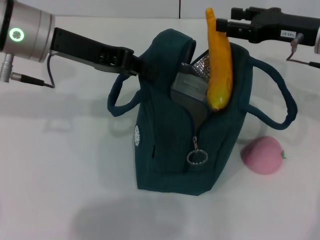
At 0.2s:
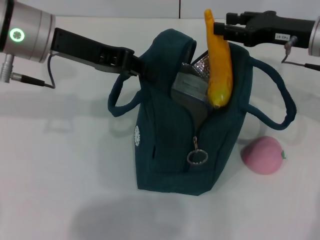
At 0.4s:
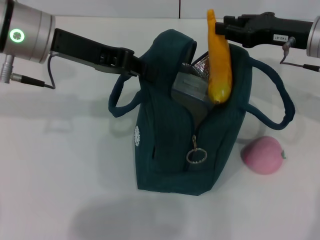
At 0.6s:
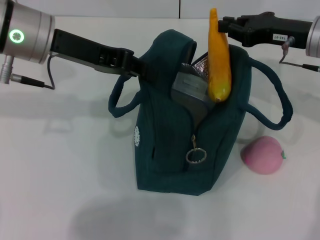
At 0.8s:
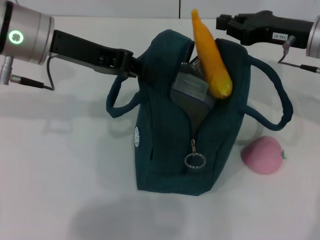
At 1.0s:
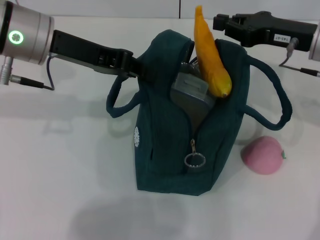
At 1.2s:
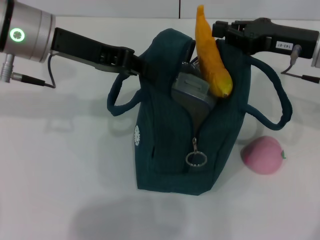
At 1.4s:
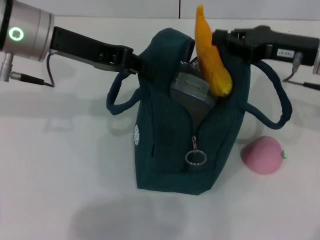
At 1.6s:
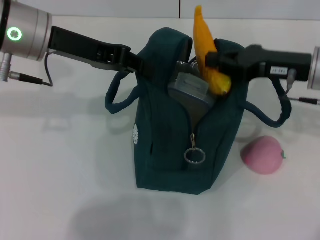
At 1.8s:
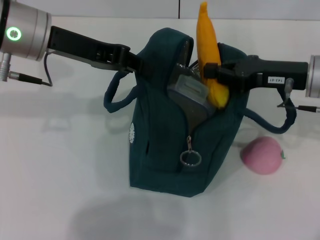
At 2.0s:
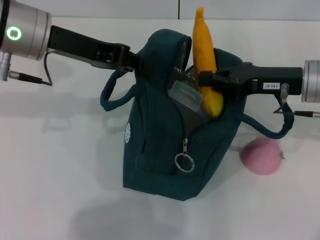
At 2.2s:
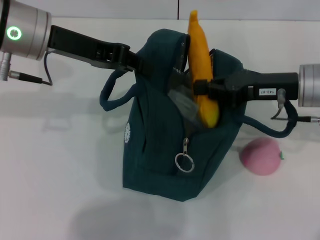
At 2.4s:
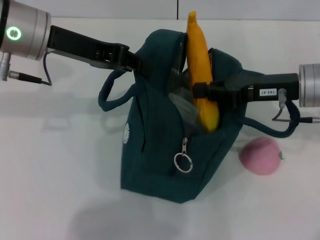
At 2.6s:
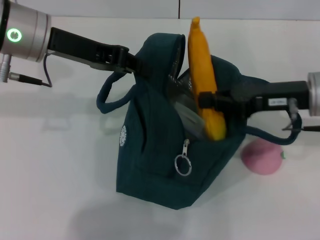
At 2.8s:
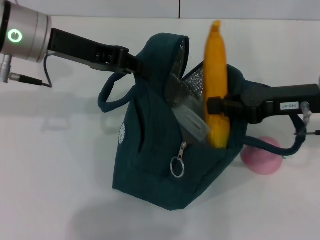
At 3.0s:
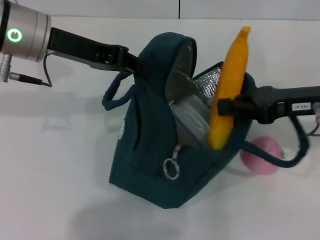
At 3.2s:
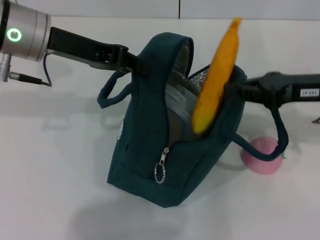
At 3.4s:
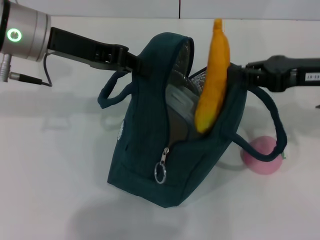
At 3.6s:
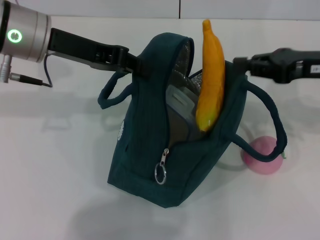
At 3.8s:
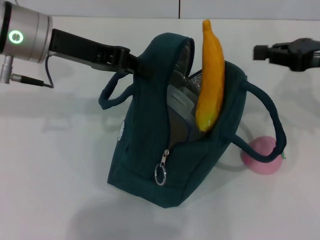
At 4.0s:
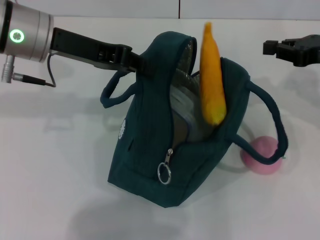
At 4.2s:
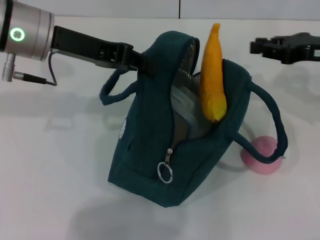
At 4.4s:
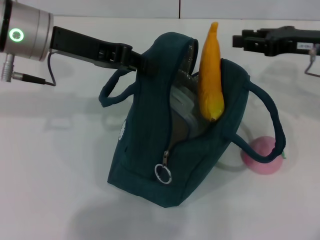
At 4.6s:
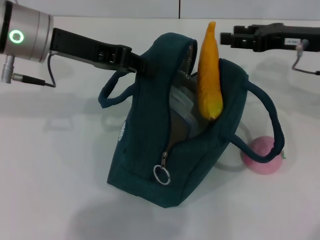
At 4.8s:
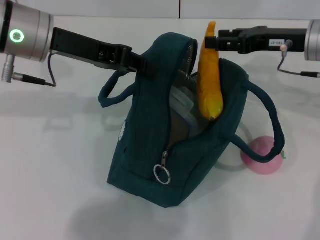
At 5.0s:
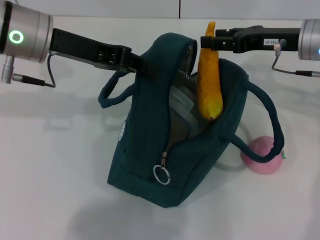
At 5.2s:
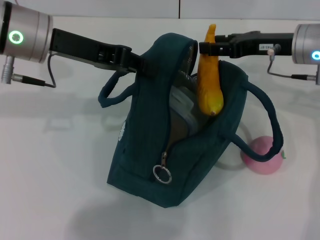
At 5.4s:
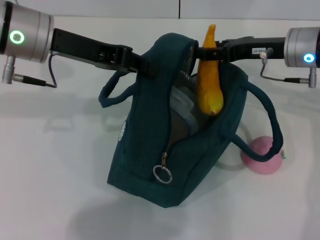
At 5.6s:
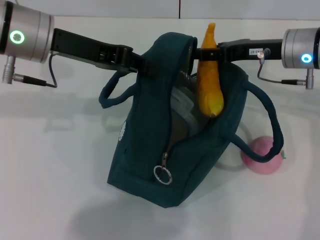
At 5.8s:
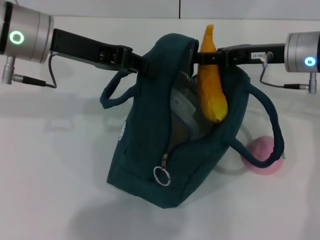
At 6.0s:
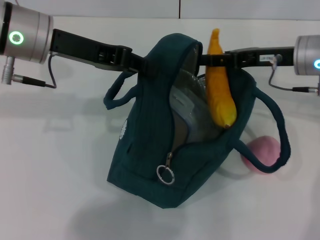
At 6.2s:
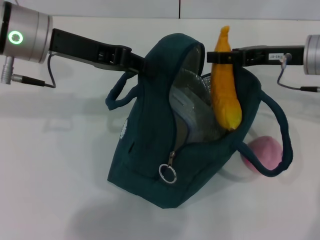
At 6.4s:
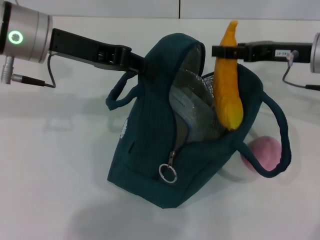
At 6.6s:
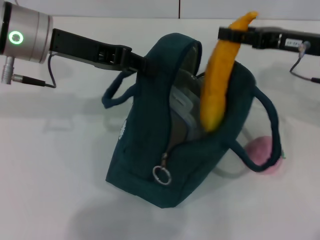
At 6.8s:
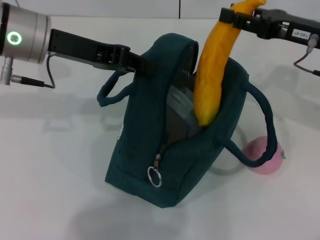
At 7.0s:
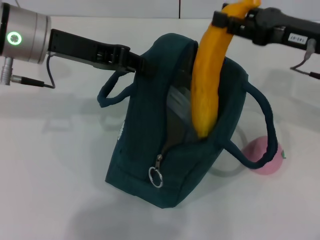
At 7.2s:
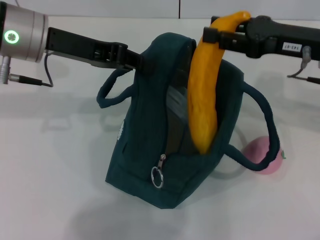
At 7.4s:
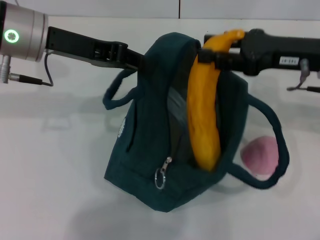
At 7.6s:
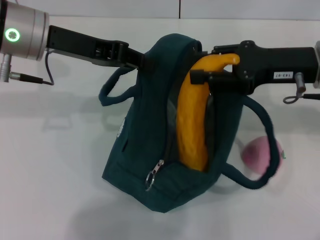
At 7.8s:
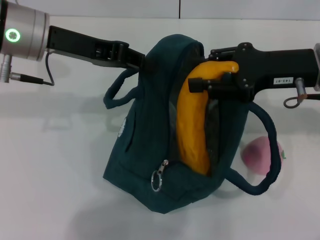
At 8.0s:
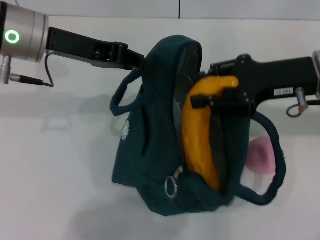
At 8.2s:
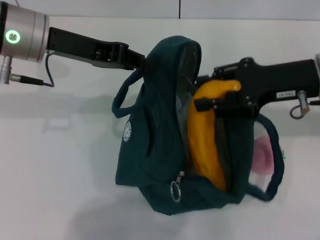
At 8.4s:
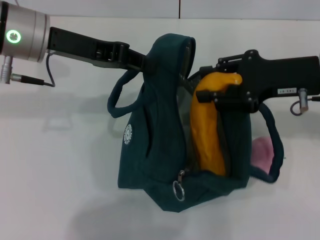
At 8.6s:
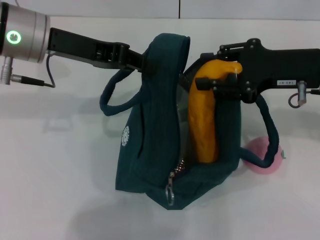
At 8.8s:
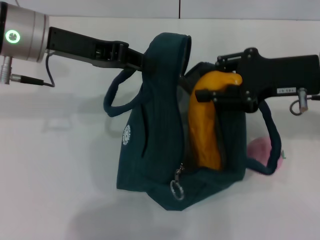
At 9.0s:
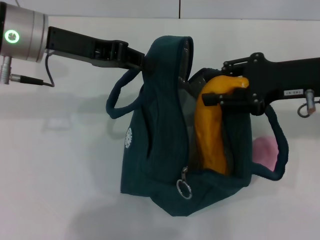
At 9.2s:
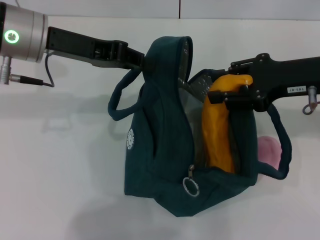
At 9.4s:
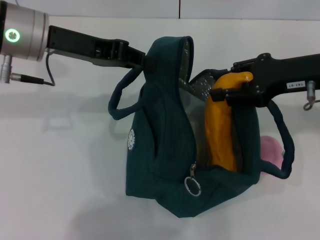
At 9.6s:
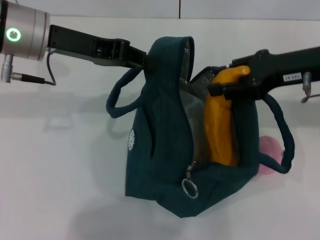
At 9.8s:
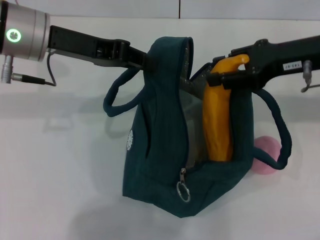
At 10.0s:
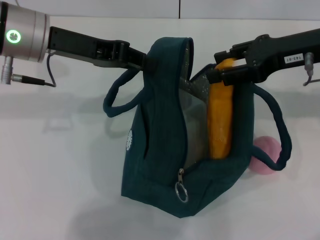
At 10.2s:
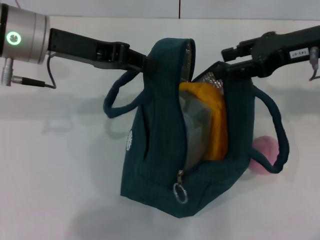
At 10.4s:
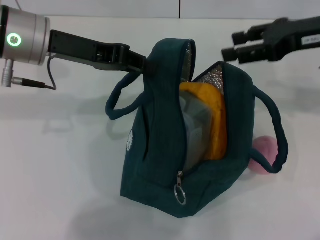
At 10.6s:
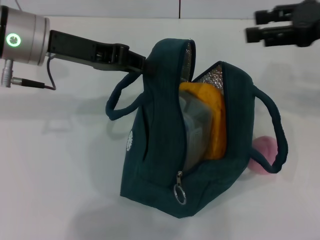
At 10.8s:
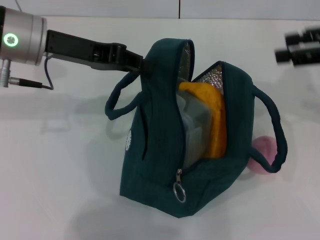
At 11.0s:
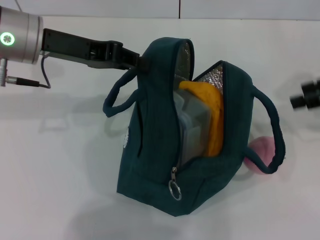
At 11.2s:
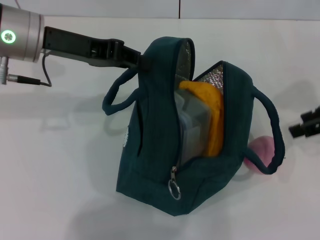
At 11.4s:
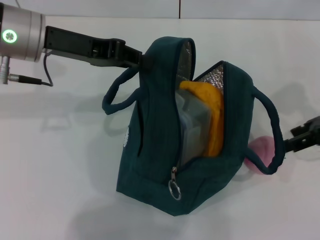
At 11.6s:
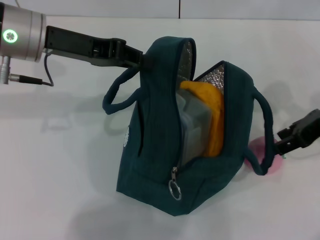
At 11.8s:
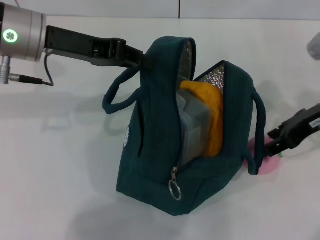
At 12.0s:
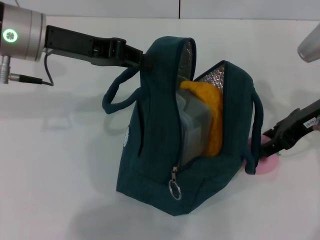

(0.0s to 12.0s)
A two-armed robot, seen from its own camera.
Step, 0.0s - 10.4s: Put the banana into the lunch bag with your right hand.
0.0s - 1.6s: The right gripper closes.
3.0s - 4.4s: The right gripper shifts approximately 5 cm forward.
4.4s - 6.0s: The right gripper opens up.
6.0s - 7.6s: The right gripper moves backward, roughly 5 cm.
9.0s - 10.4s: The right gripper moves approximately 5 cm.
10.4s - 12.0s: The right gripper moves downward, about 5 cm.

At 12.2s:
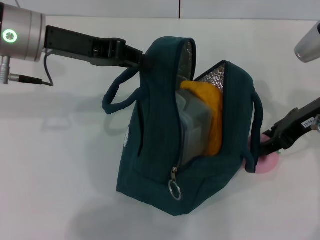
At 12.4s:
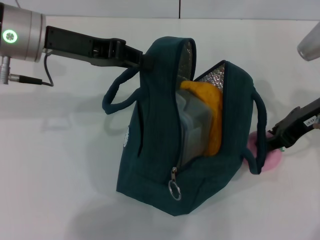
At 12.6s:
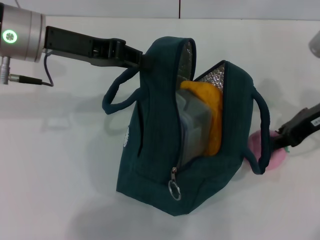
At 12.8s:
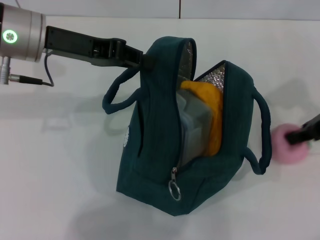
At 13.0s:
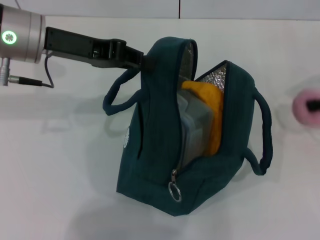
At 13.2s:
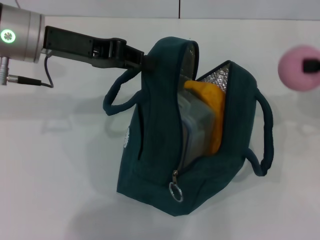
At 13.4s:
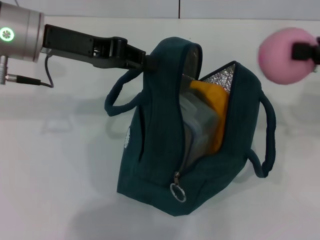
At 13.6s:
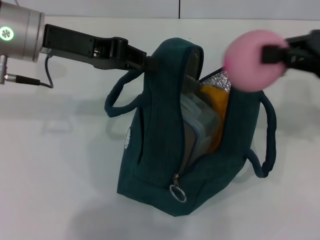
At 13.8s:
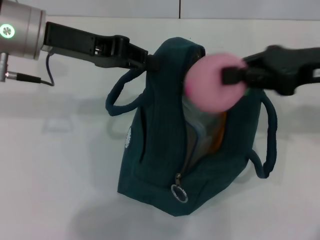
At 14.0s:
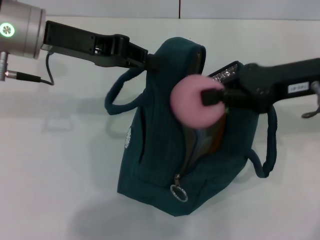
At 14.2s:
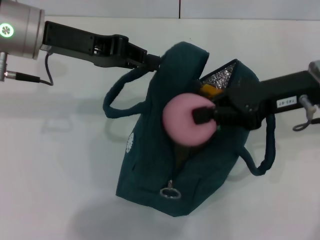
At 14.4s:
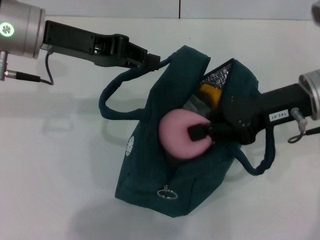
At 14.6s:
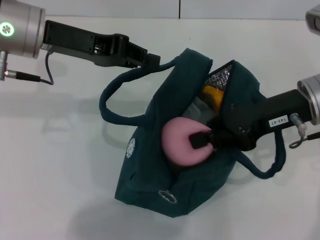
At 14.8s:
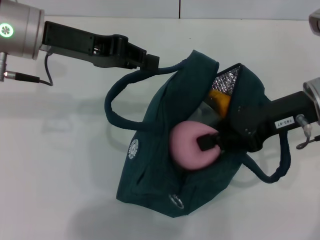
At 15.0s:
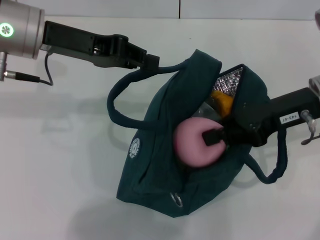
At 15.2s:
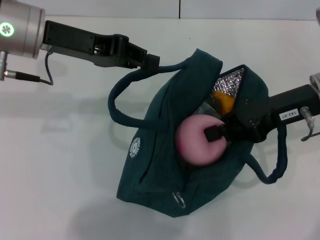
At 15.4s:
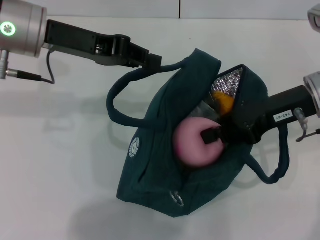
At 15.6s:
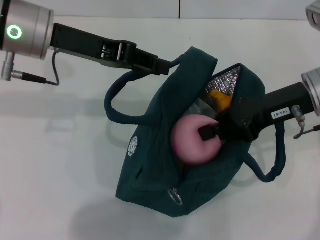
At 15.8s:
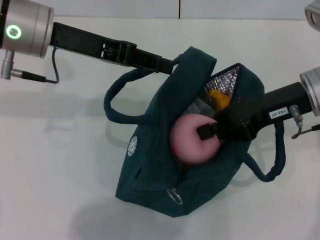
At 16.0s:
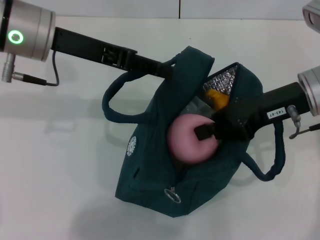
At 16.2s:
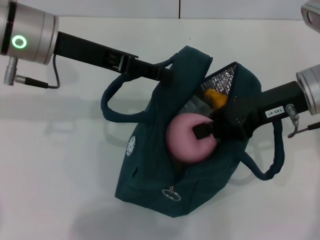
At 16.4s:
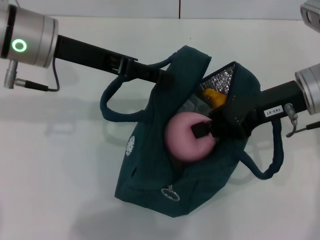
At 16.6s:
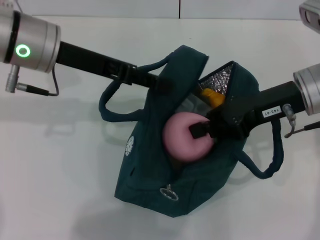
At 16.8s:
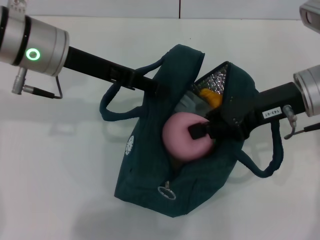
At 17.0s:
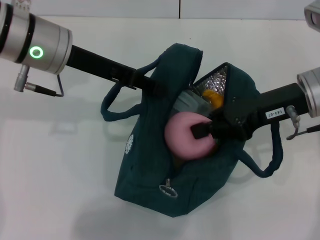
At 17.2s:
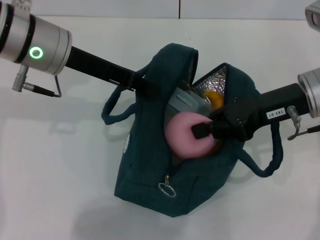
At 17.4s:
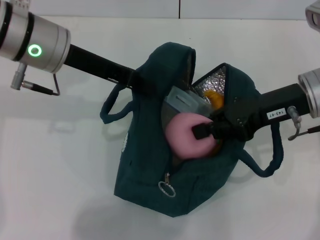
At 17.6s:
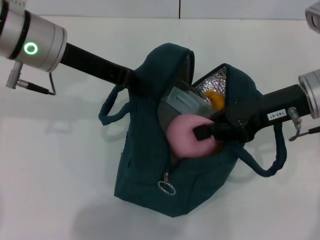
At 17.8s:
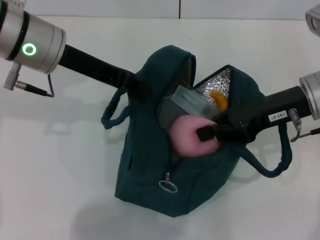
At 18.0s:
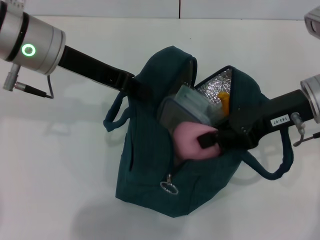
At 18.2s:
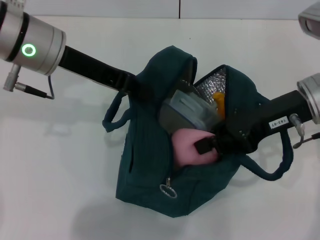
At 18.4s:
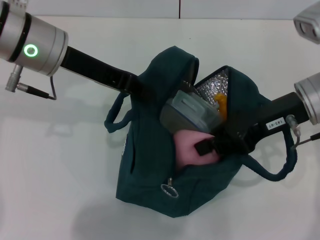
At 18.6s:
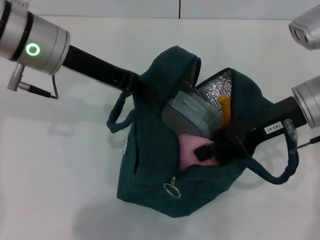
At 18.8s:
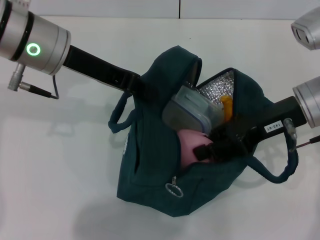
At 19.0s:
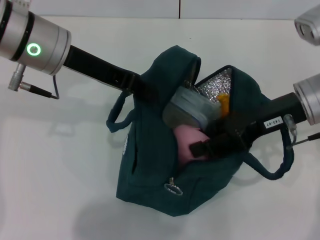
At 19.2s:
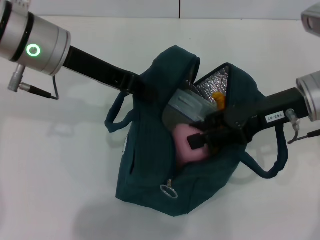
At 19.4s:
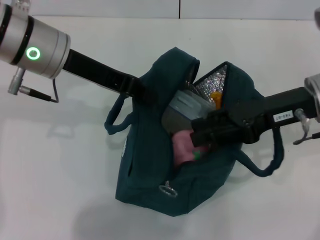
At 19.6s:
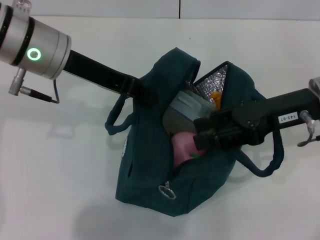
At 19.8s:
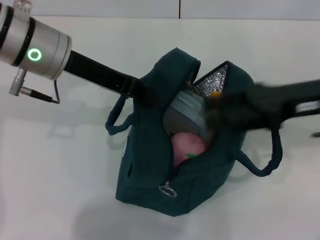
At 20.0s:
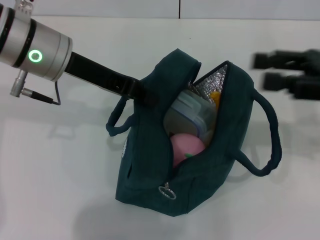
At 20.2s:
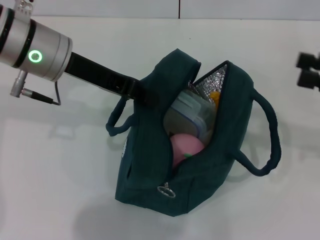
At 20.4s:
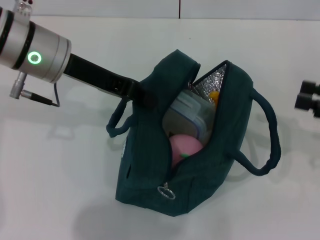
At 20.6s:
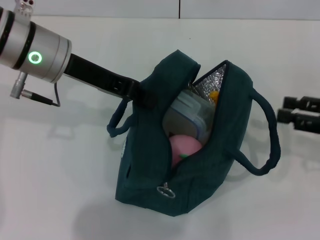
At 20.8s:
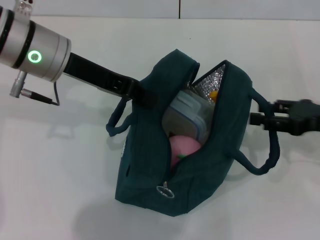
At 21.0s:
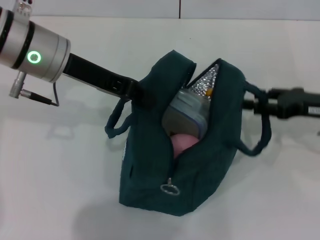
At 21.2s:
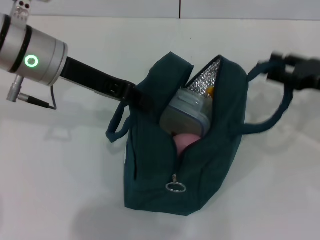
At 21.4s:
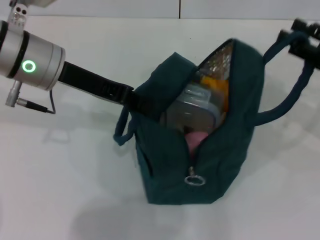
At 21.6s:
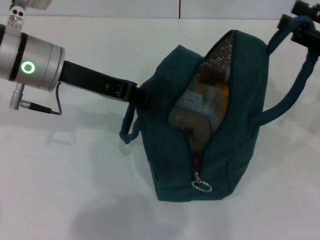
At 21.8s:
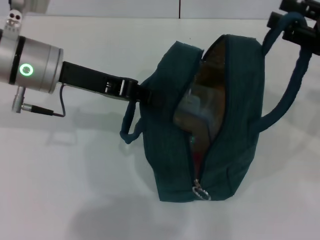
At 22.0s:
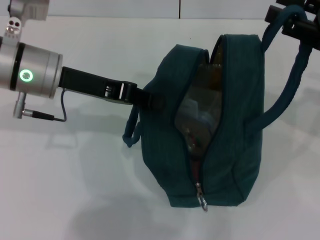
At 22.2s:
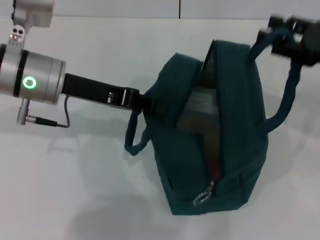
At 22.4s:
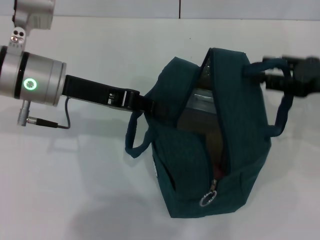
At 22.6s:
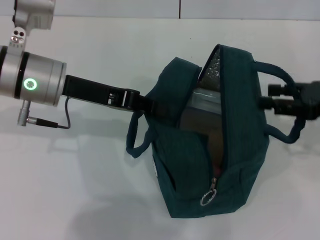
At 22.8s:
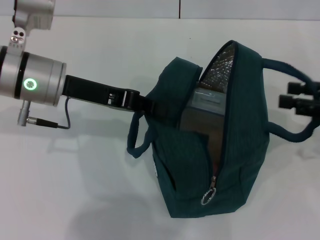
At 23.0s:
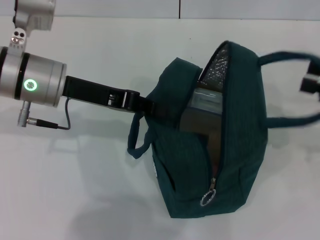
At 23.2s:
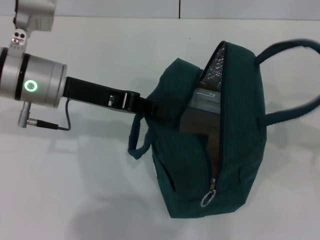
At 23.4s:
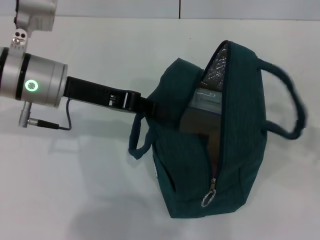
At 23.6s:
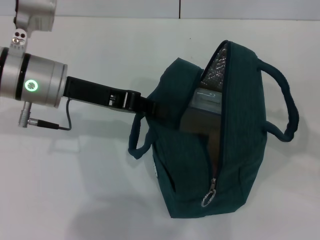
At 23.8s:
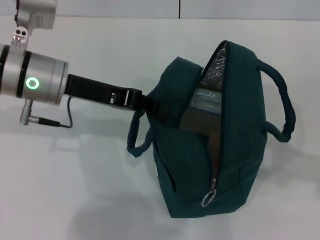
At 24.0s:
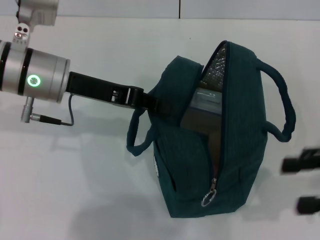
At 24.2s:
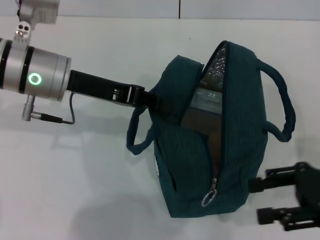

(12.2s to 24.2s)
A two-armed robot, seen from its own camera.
Step, 12.8s - 19.4s: Secure the lunch bag with your left hand.
Step, 19.8s - 23.6s: Hold the lunch bag with your right hand.
12.2s - 13.8s: The right gripper travels to the right and back again, approximately 10 cm each way, and closes up.
15.2s - 16.6s: The left gripper opens.
16.6s - 18.2s: The left gripper closes its fingers.
18.2s - 19.8s: The right gripper opens.
19.8s - 21.2s: The right gripper shifts about 10 cm to the right and downward.
22.6s - 24.2s: The right gripper travels backward by approximately 5 cm.
